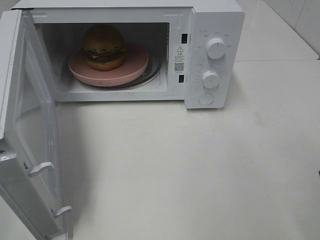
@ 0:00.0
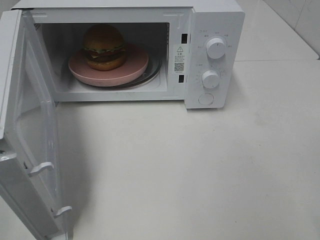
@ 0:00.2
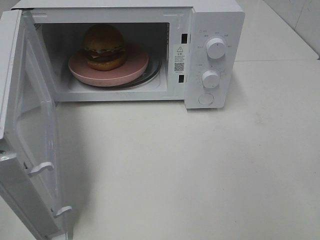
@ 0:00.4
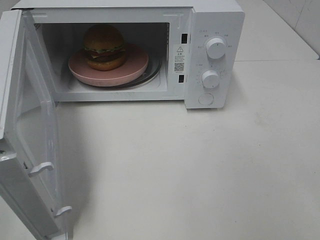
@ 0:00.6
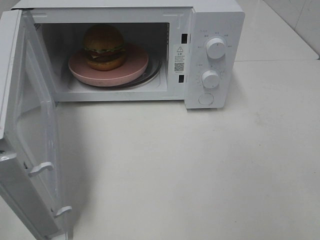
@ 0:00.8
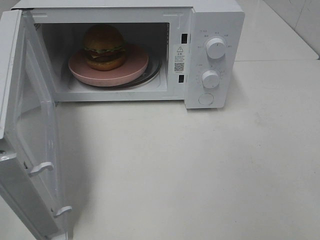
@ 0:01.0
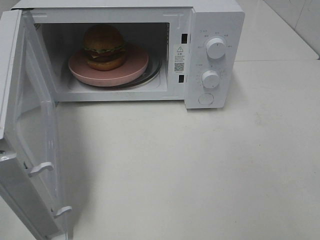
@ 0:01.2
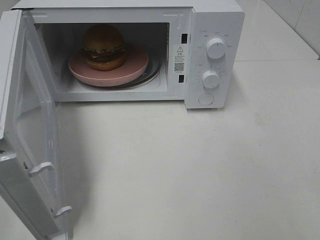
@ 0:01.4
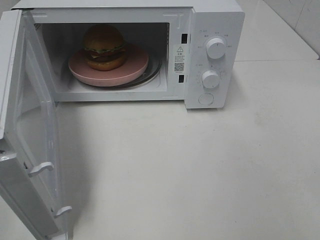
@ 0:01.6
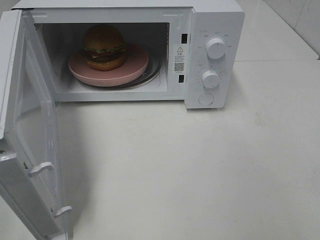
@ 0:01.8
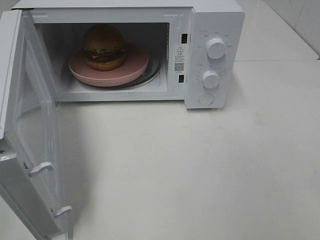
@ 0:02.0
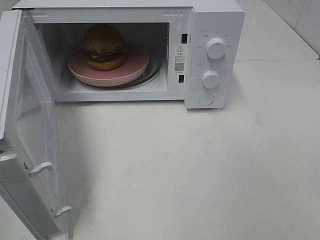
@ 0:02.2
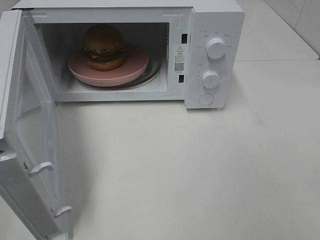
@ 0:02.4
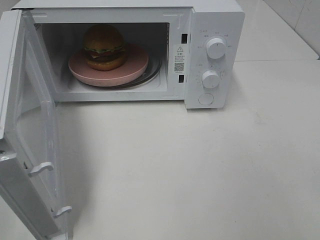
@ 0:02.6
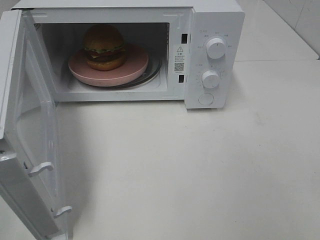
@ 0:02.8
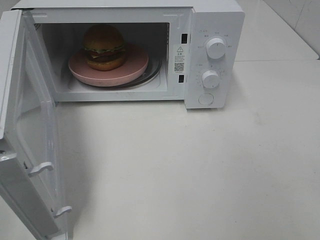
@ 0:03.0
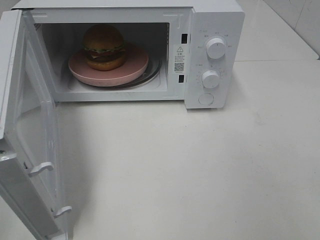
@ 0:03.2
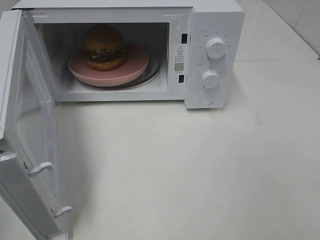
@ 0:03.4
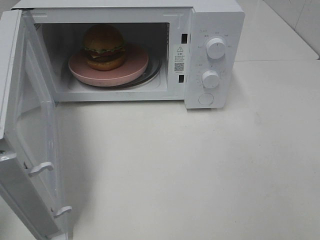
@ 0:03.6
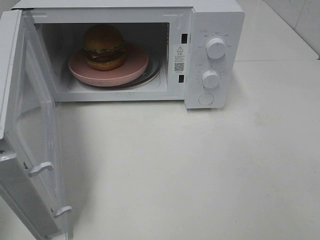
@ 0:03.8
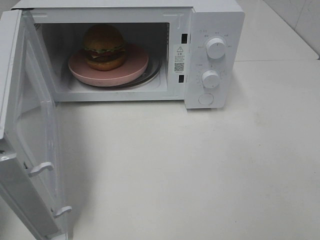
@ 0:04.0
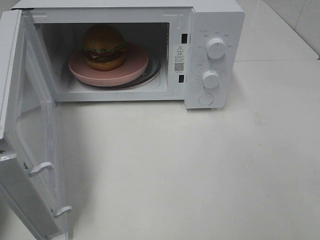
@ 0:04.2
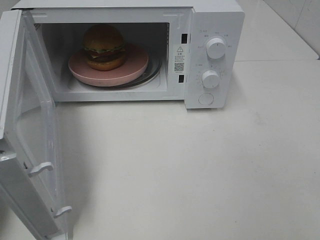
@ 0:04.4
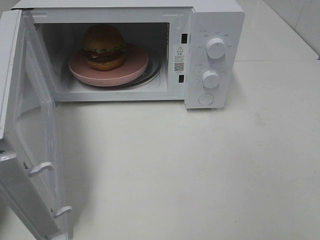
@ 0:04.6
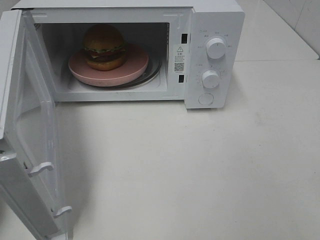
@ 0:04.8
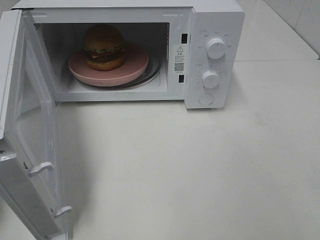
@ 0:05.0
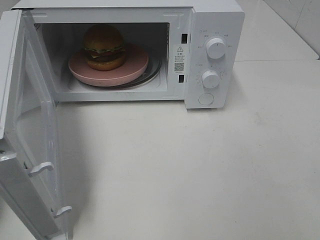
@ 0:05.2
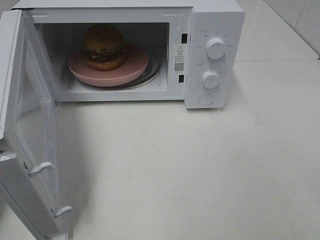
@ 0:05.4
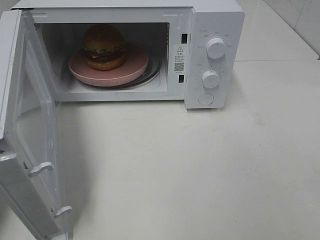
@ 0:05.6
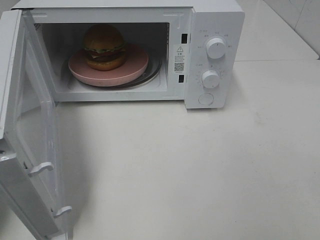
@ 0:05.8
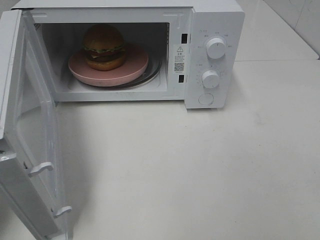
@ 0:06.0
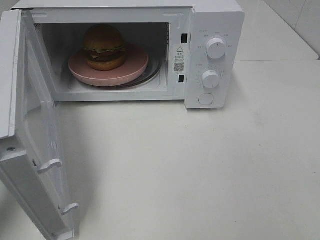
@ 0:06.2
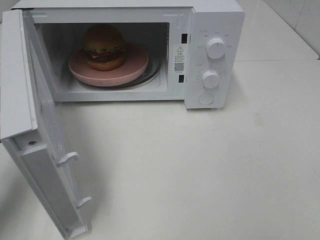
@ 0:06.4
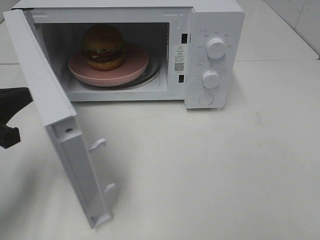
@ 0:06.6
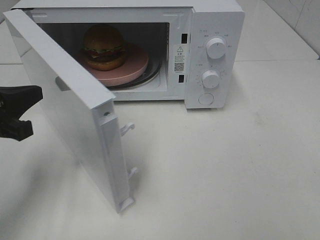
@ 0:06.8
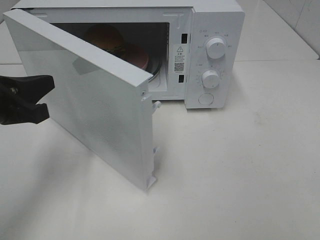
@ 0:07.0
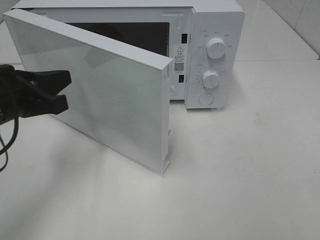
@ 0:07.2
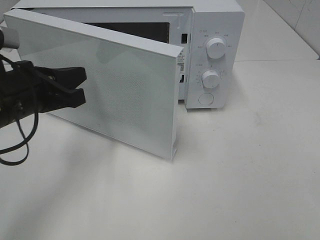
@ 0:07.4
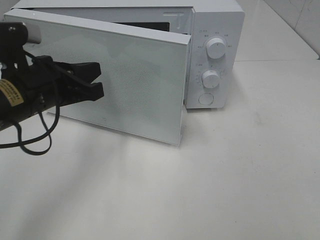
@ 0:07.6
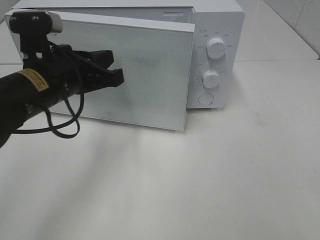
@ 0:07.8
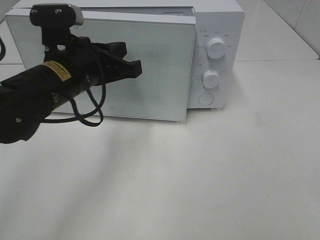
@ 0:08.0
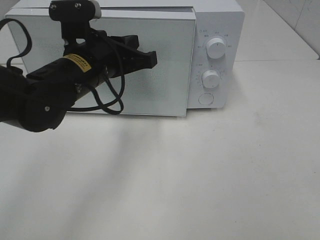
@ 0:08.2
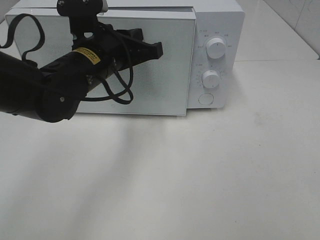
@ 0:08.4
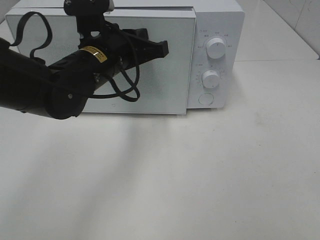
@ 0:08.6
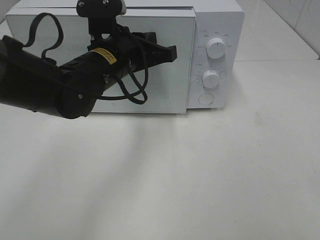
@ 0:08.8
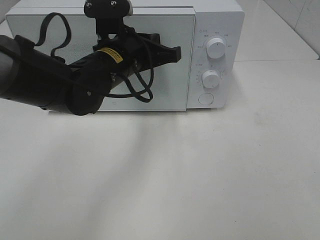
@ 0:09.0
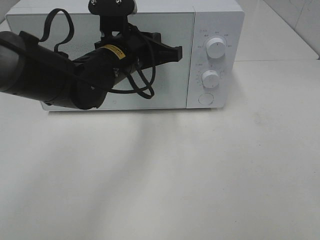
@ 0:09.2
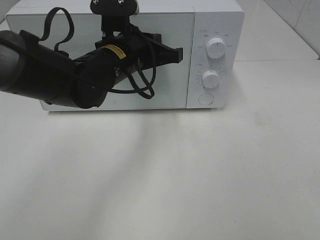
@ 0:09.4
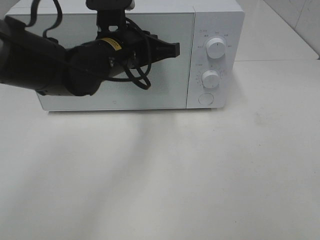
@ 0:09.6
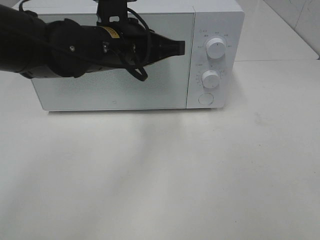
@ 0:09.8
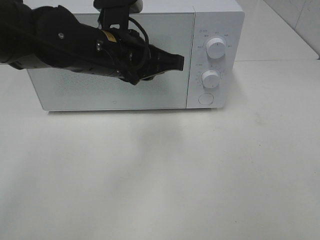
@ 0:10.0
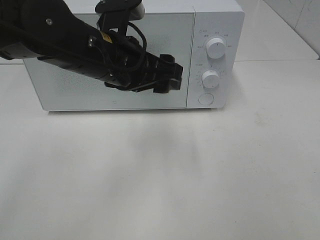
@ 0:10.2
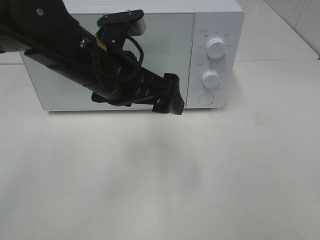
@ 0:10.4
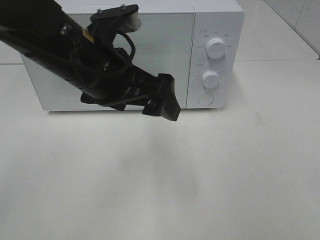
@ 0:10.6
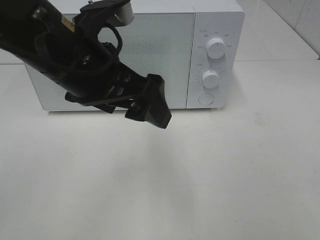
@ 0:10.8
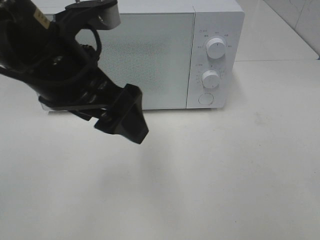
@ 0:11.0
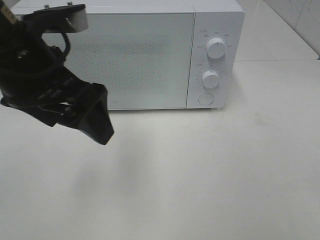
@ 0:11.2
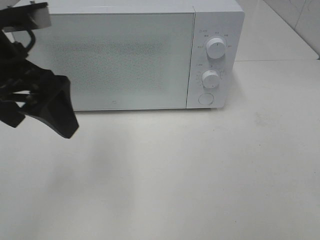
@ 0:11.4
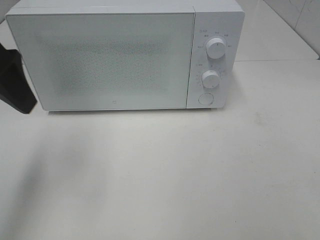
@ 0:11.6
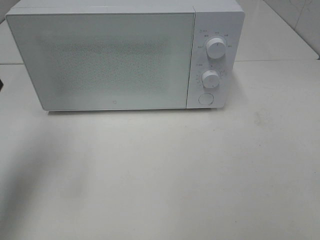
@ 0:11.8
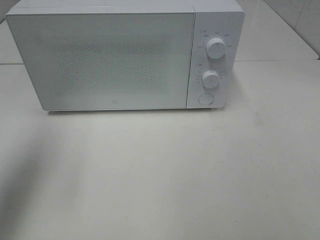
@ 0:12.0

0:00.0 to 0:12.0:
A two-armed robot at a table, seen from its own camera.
Task of the whole recording: Heat the burger.
Step, 0:00.0 to 0:09.6: Left hand: close the microwave door.
0:01.6 to 0:03.0: Both grippers stay put.
0:06.0 to 0:07.6: The left gripper shifts about 15 cm to the right and forward.
0:07.6 to 0:09.0: The left gripper travels to the right and forward by about 15 cm.
0:09.0 to 0:10.4: The left gripper shifts approximately 5 cm backward, and opens its fingers.
0:10.4 to 0:12.0: The left gripper heads to the left and upward, covering some 25 cm.

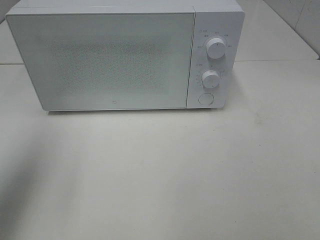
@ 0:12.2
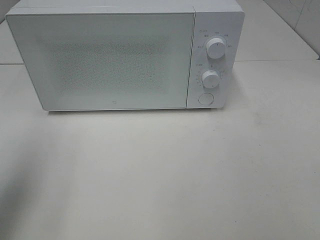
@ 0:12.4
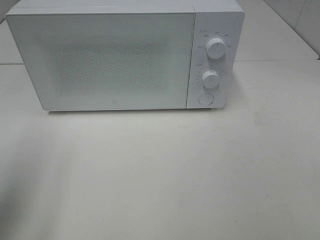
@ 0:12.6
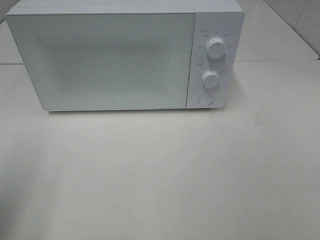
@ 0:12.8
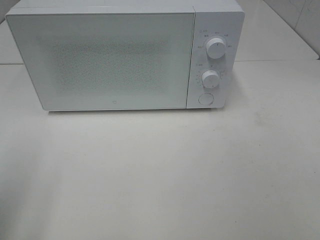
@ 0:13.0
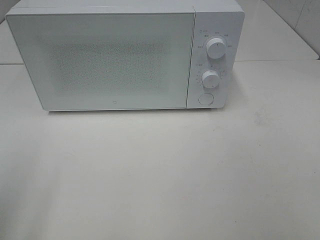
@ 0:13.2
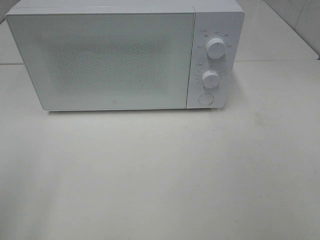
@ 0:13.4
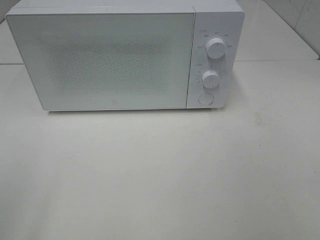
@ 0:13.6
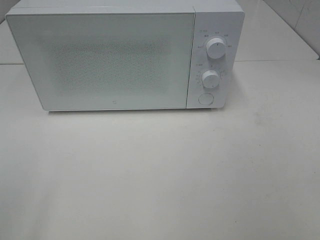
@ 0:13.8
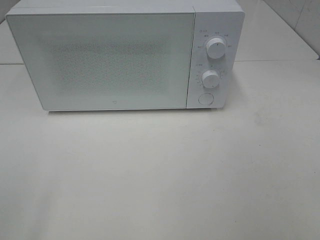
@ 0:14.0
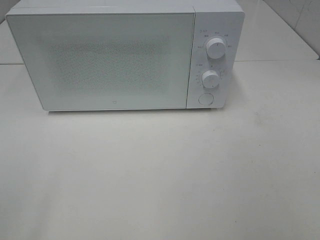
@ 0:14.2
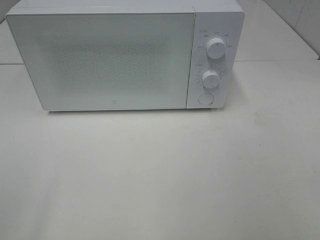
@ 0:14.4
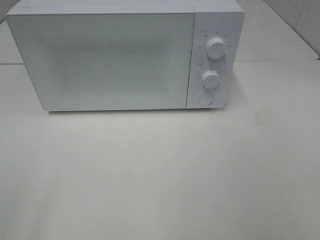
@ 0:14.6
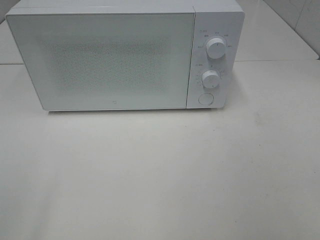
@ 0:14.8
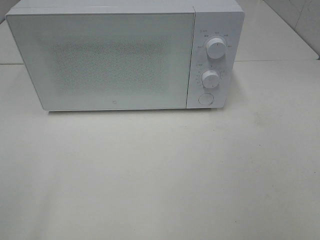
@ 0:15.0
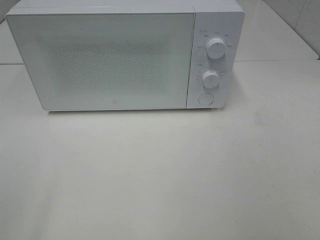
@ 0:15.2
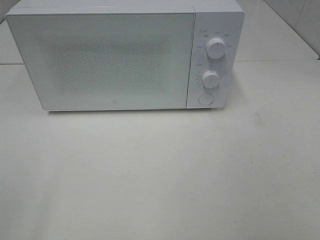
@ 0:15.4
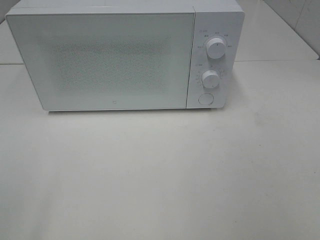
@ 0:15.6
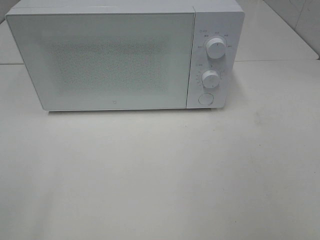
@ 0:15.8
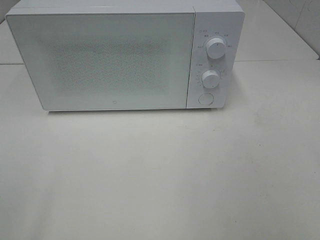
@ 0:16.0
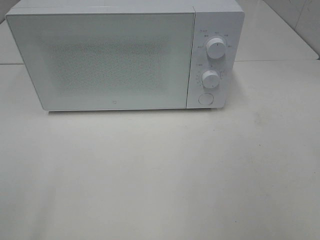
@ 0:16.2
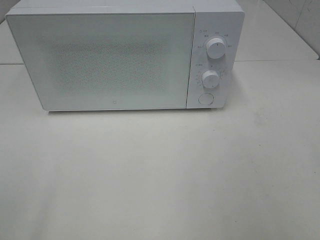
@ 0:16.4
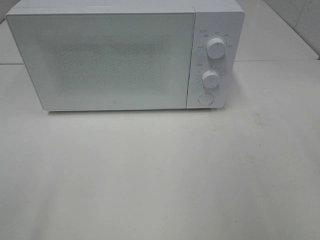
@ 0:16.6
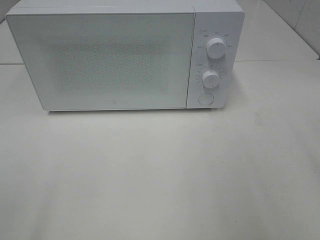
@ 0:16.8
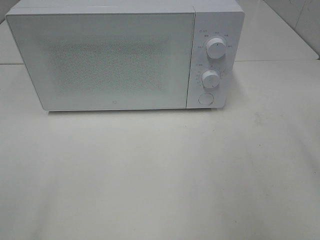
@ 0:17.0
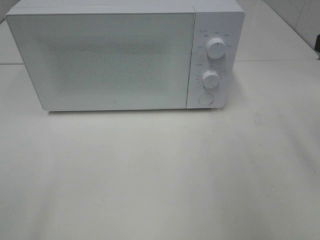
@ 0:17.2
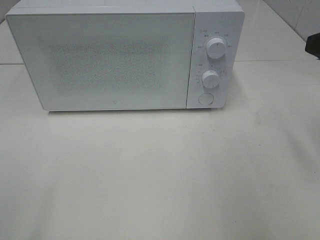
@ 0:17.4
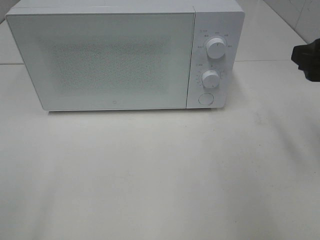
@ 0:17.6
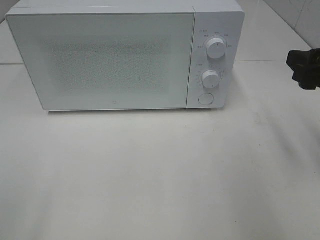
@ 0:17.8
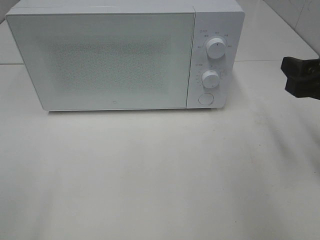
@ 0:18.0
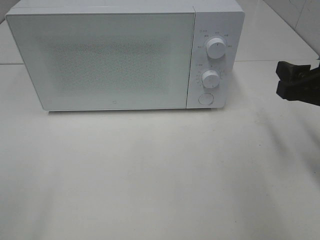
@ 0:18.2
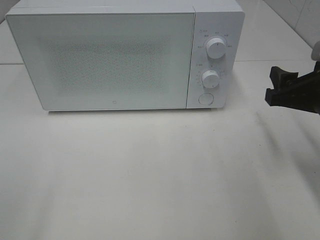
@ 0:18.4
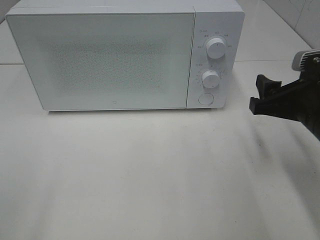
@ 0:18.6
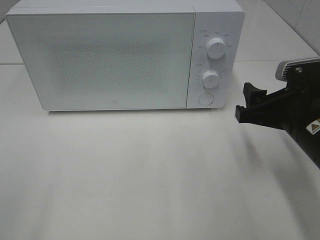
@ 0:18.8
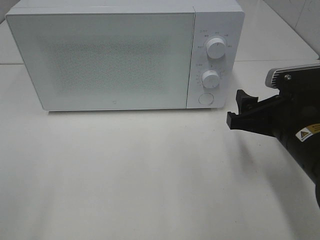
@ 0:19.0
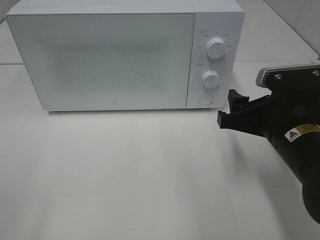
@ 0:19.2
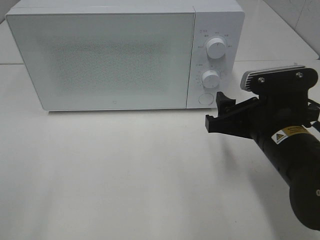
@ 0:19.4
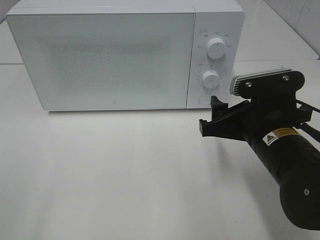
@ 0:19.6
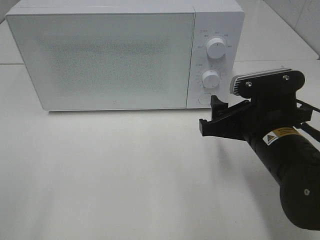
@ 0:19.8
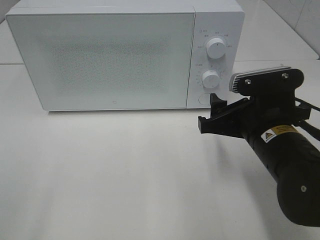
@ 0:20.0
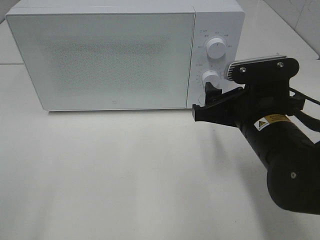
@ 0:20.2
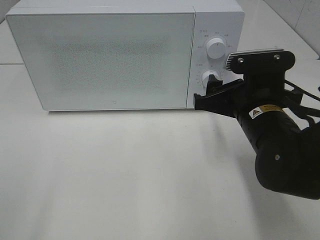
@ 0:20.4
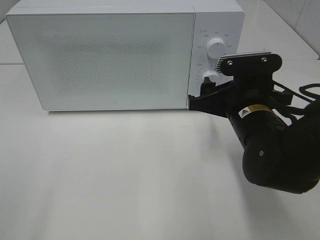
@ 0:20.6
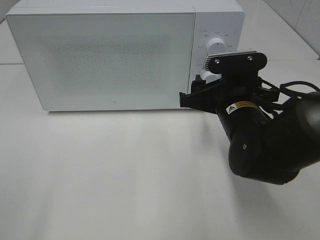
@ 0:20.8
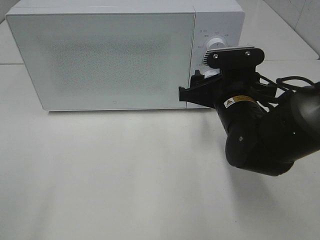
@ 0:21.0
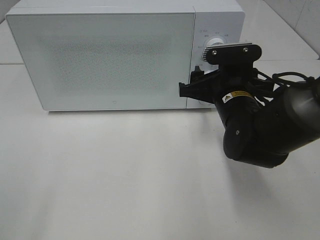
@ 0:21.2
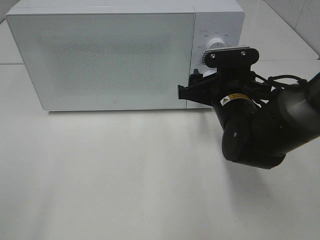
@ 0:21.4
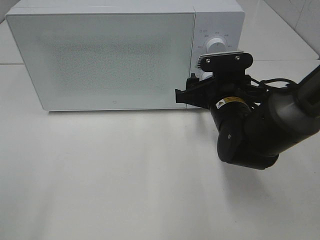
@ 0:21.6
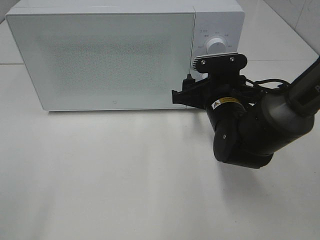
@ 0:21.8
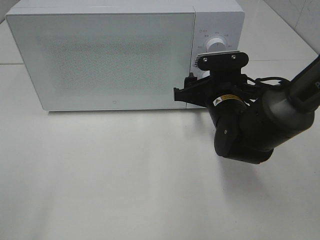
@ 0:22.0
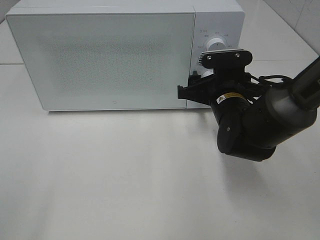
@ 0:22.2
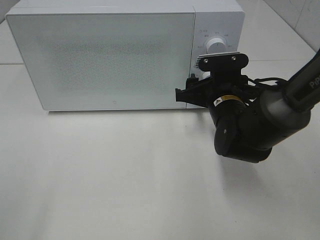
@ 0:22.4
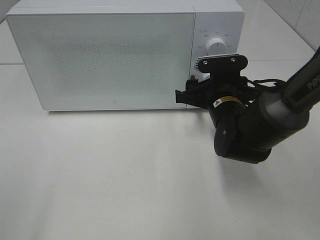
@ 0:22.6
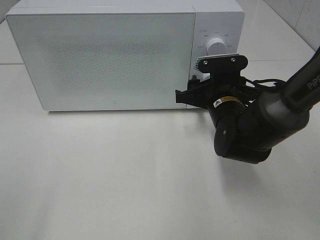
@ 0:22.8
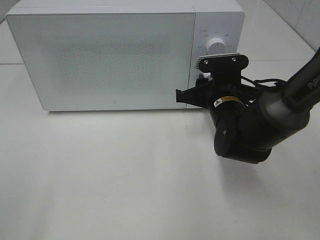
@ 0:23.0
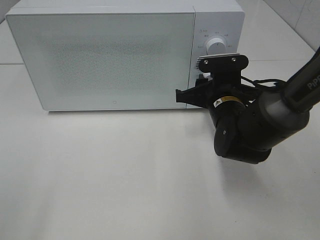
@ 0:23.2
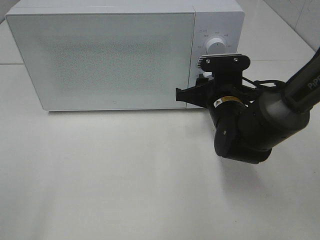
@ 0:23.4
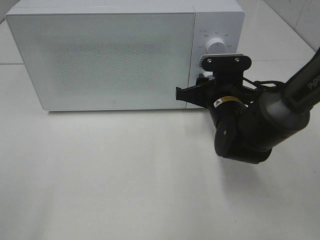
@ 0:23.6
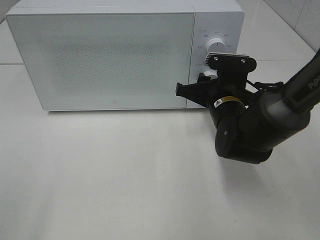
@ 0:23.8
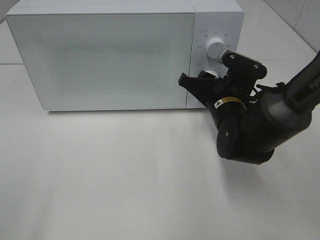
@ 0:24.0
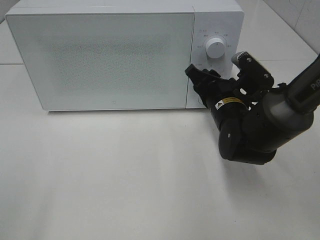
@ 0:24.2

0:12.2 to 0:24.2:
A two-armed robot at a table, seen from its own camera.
Task of the whole recording: Heat the burger.
0:12.2 to 0:13.8: The left gripper is displaced backward by about 20 cm.
0:13.8 to 0:15.2: Both grippers stay about where they are.
0:16.6 to 0:18.2: The right gripper goes approximately 15 cm downward and forward.
0:18.2 to 0:19.8: The right gripper heads to the left, covering some 10 cm.
0:19.8 to 0:21.2: The right gripper shifts about 10 cm forward.
0:21.2 to 0:22.6: The grippers make only small movements.
0:22.6 to 0:24.2: The right gripper closes its fingers.
